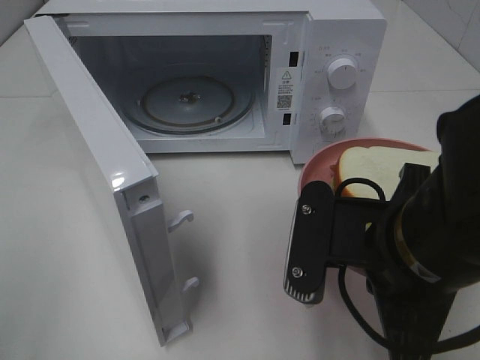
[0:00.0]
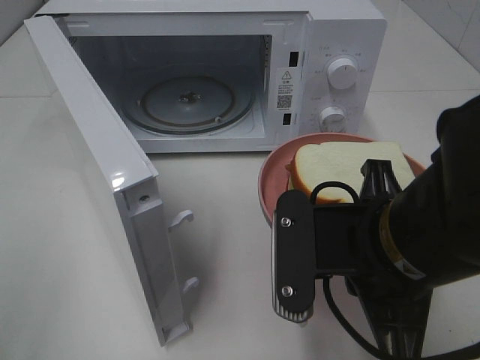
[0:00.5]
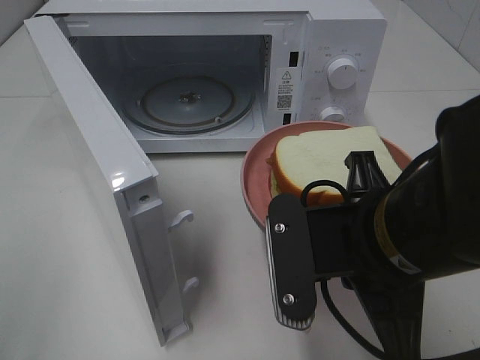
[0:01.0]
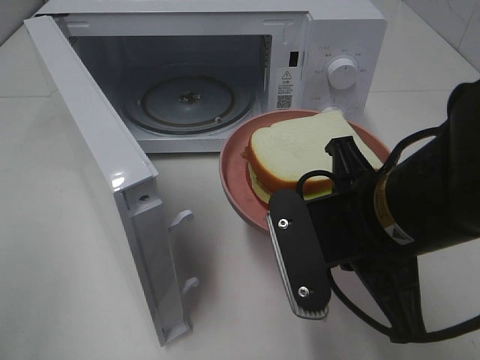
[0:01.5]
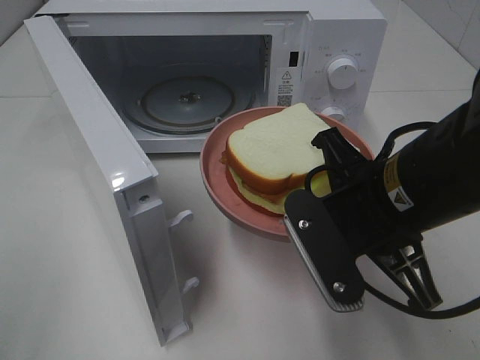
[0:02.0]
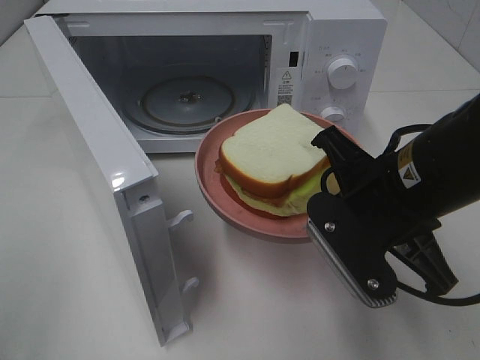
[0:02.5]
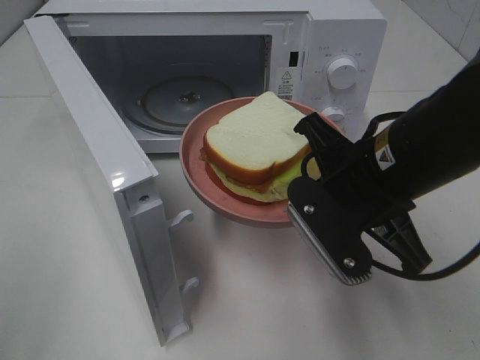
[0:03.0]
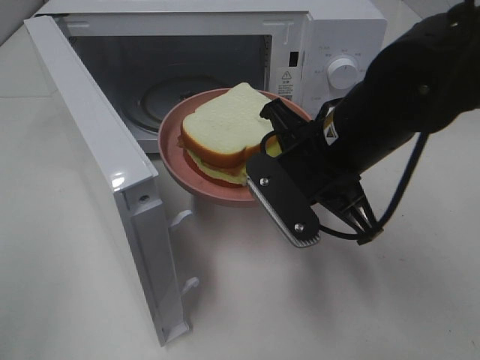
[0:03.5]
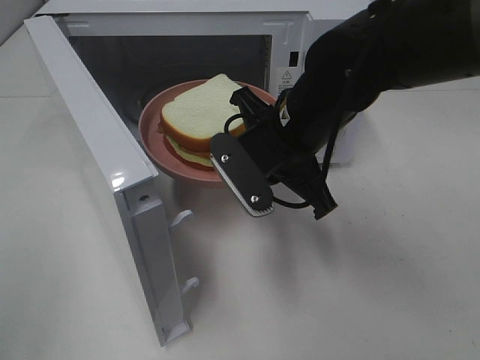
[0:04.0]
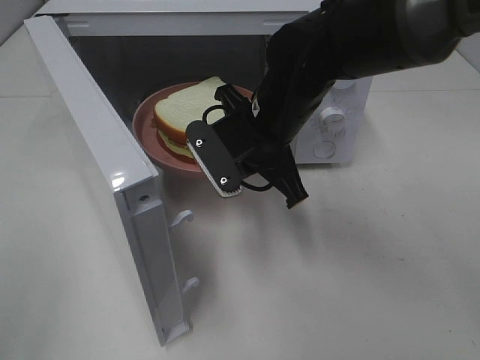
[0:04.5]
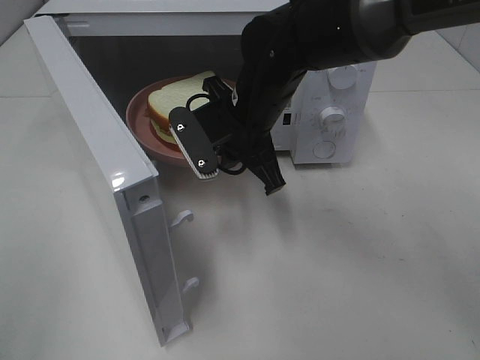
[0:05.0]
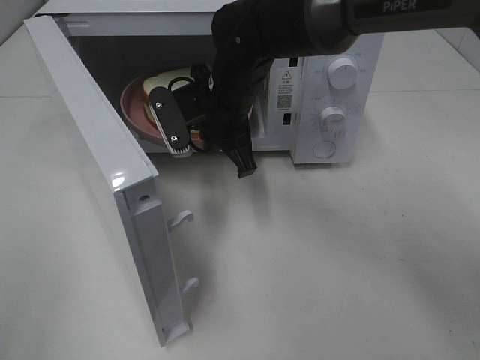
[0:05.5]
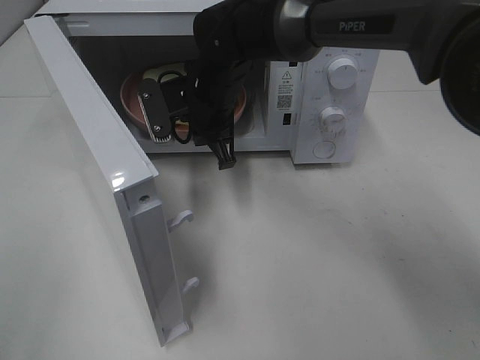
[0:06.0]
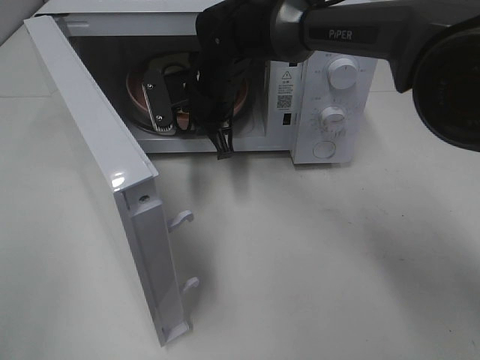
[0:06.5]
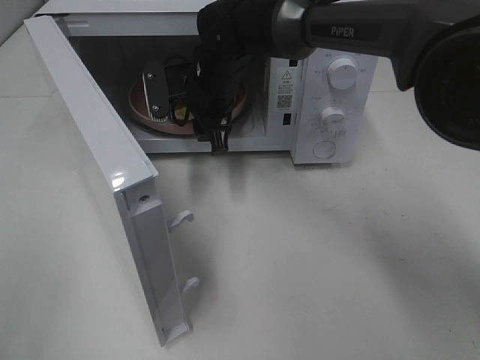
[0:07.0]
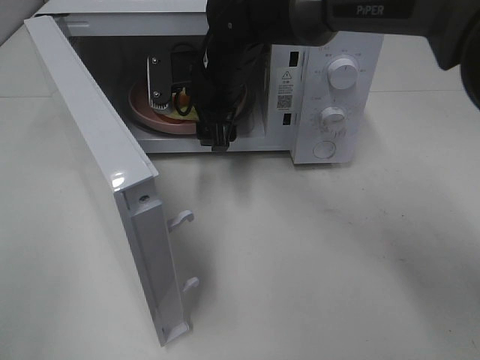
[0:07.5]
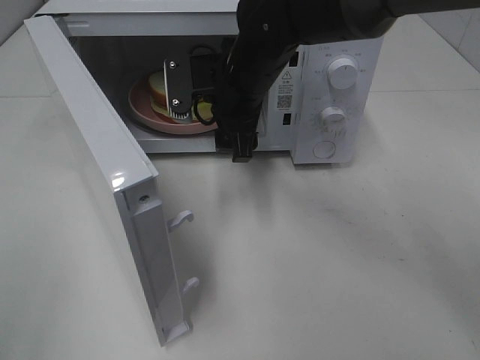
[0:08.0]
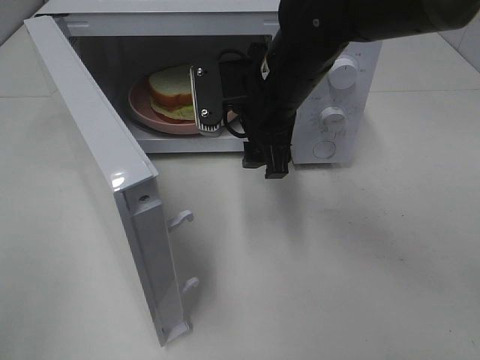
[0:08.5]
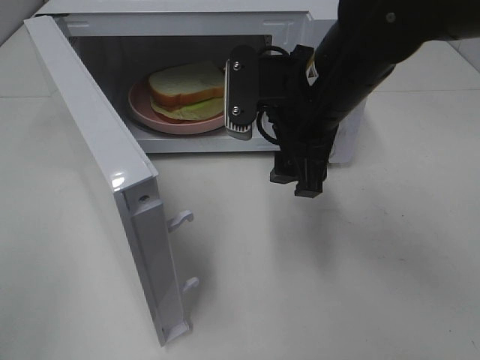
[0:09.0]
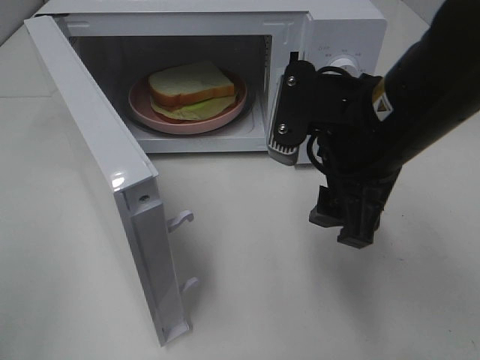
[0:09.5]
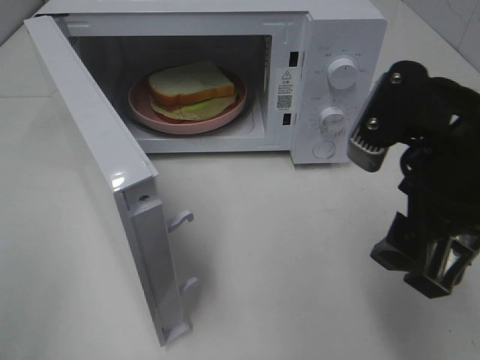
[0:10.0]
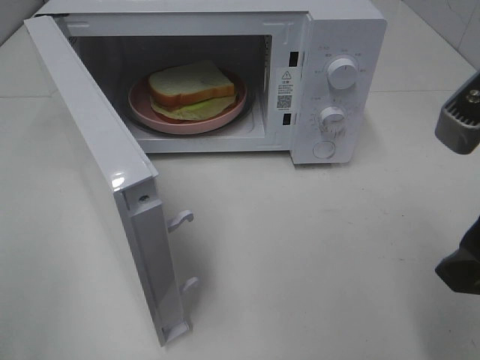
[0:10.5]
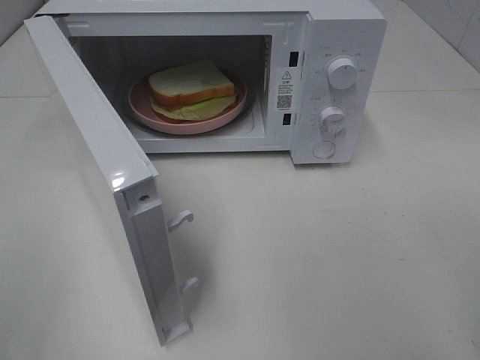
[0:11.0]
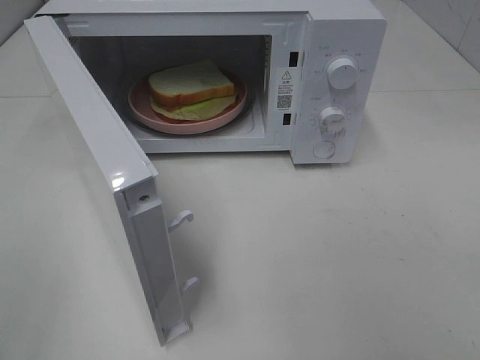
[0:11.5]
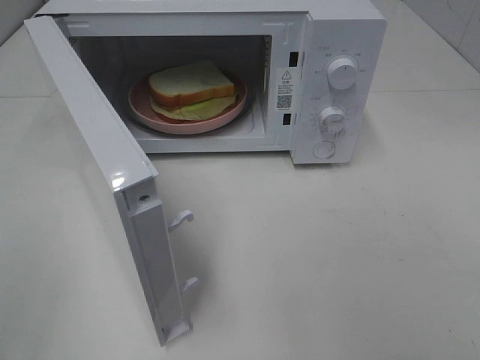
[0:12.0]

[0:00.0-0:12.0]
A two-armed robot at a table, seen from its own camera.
Task of the whole recording: Heat Sandwich.
Step, 0:00.0 to 0:07.5: Right hand: place the plate in the microwave.
0:02.0 to 0:04.0: The right gripper is displaced forward and to the left by roughly 10 cm.
0:04.0 to 0:06.0: The right gripper heads forward and to the left, covering some 15 cm.
0:06.0 to 0:08.0: The right gripper moves about 5 cm, and opens.
0:08.0 to 0:10.0: The right gripper shifts roughly 25 cm backward and to the right.
0:10.0 to 0:12.0: The right gripper shifts approximately 20 cm backward and to the right.

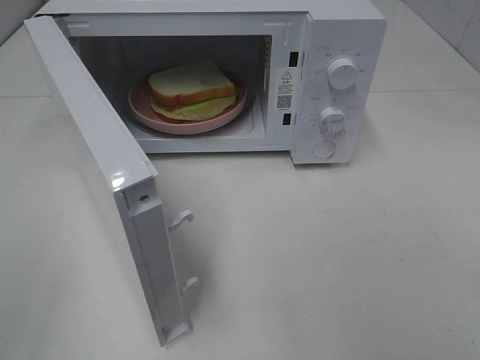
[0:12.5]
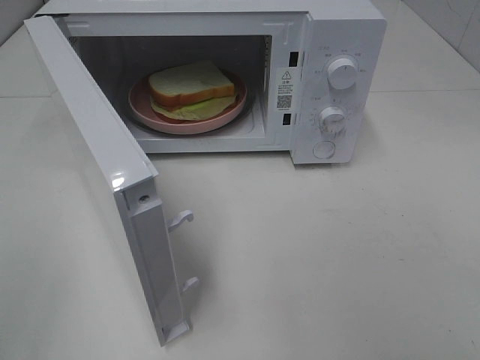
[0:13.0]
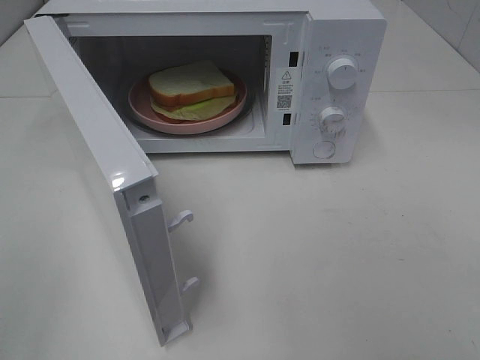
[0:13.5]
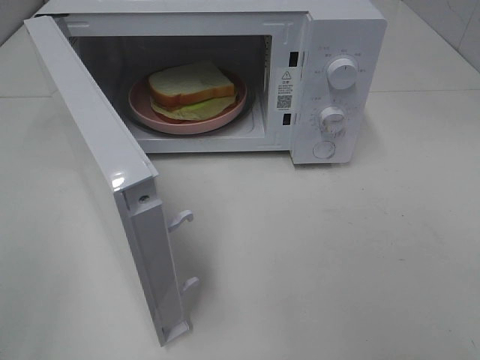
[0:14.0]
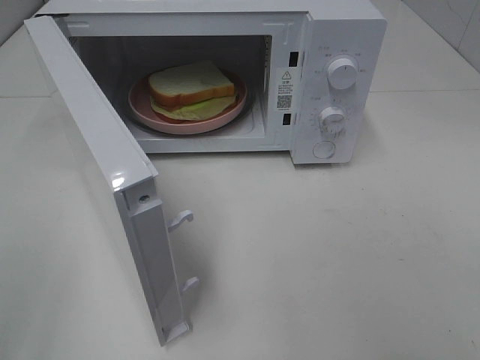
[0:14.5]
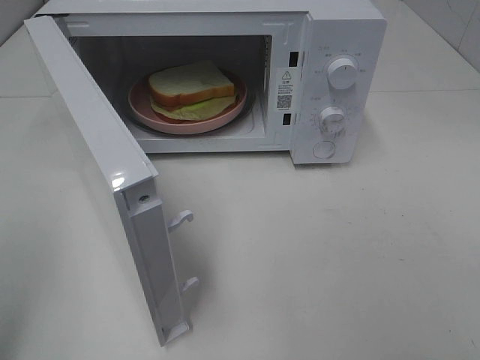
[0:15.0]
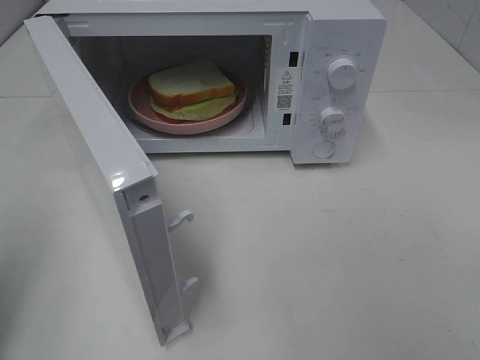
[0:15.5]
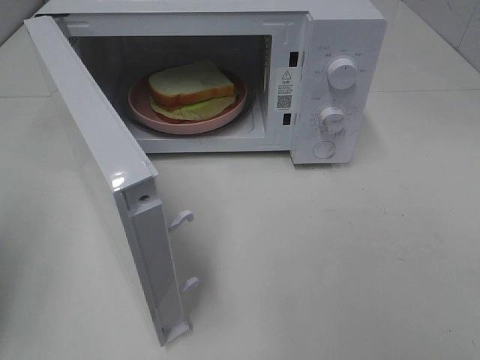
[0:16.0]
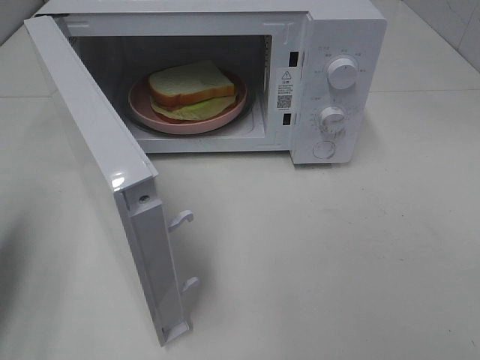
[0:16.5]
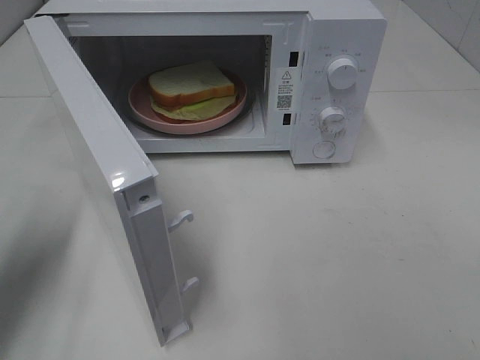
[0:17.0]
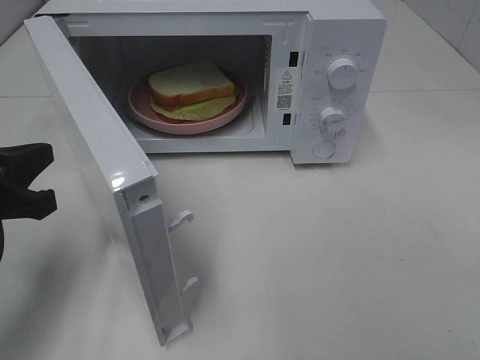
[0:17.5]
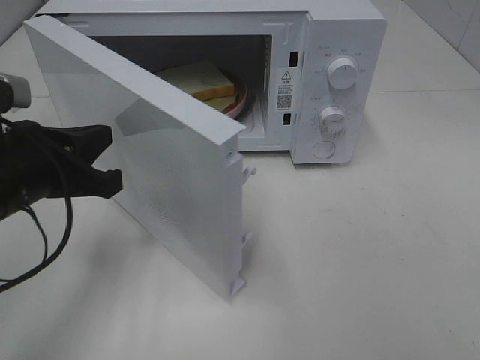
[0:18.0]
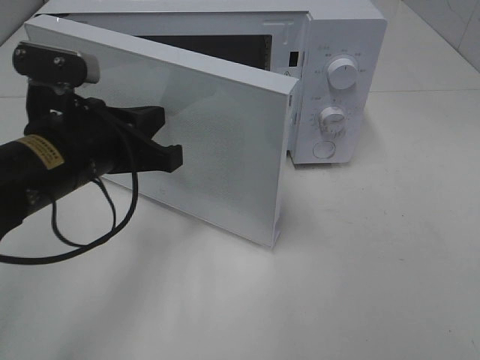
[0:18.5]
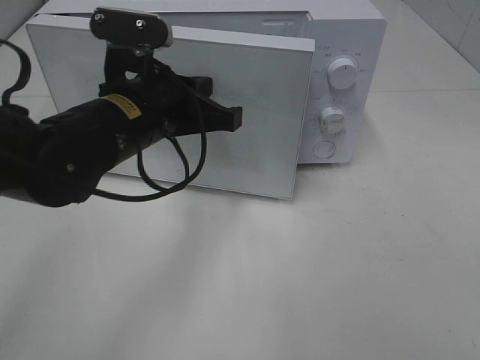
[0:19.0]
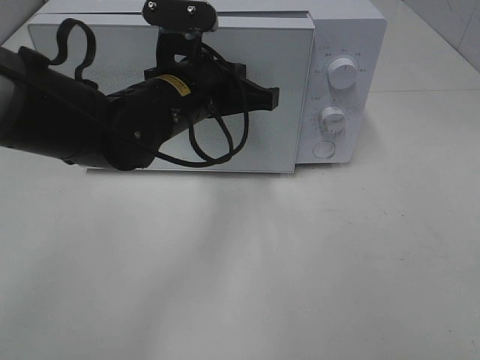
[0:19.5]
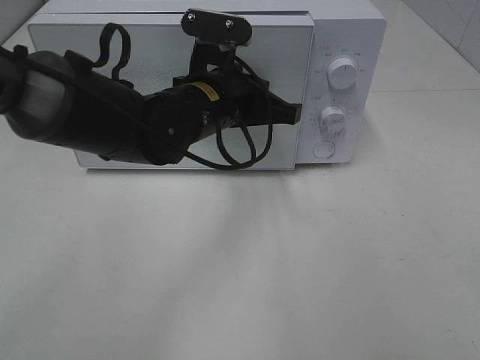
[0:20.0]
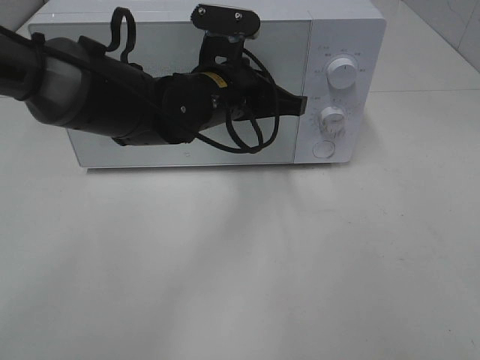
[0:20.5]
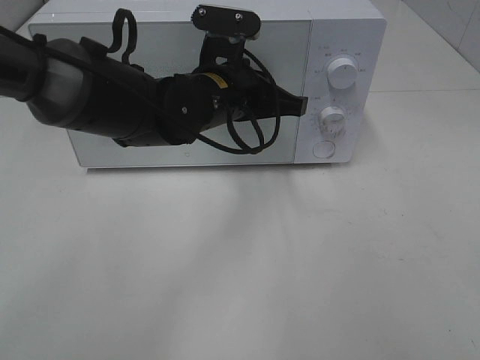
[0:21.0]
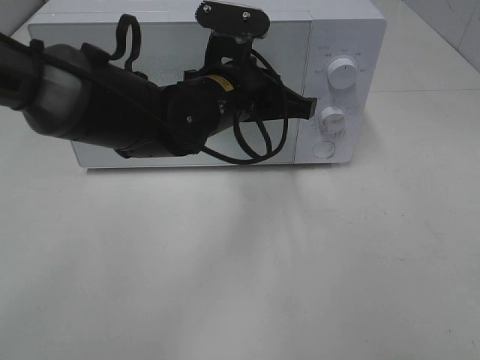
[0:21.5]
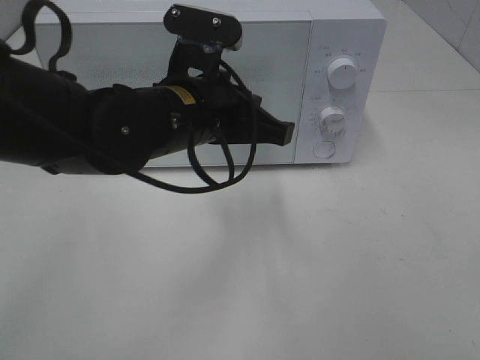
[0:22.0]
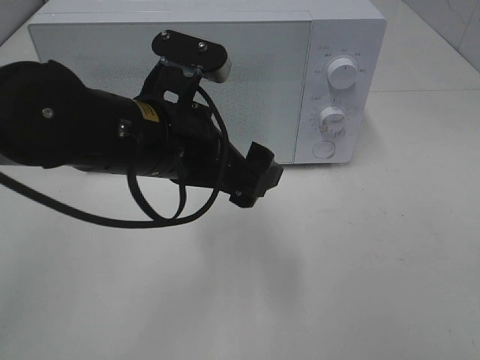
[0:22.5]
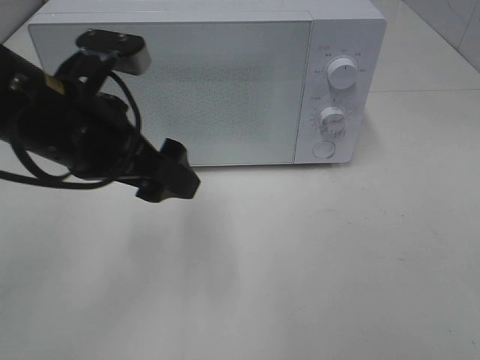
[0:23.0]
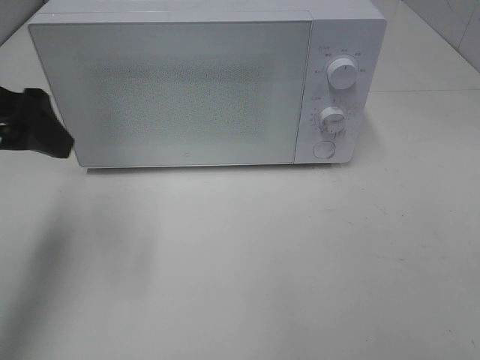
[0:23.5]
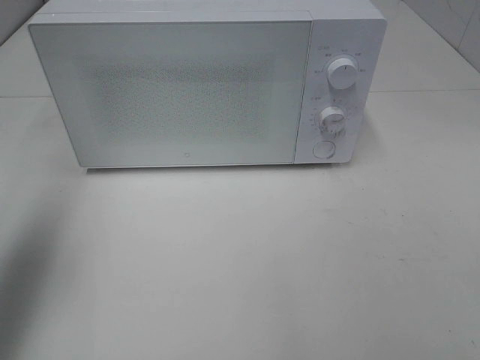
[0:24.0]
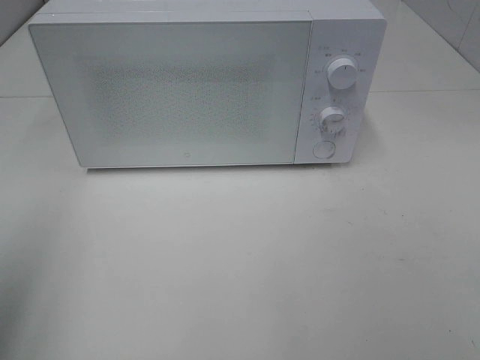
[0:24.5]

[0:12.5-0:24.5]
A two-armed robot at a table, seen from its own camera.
Task of the whole recording: Heat Sandwich.
Step, 0:12.5 to 0:21.0: Left hand: close the microwave door.
0:12.5 to 0:14.5: Both grippers stay put.
0:14.5 to 0:16.5: The left gripper is displaced forward and downward by some 20 cm, and closes.
0:16.5 to 0:18.5: The left gripper goes approximately 20 cm to the right.
0:18.5 to 0:20.5: The left gripper moves to the right and forward, about 15 cm.
0:20.5 to 0:22.5: The left gripper shifts some 10 cm backward, and opens up.
0:22.5 to 0:24.5: The left gripper moves to the left and backward, about 30 cm.

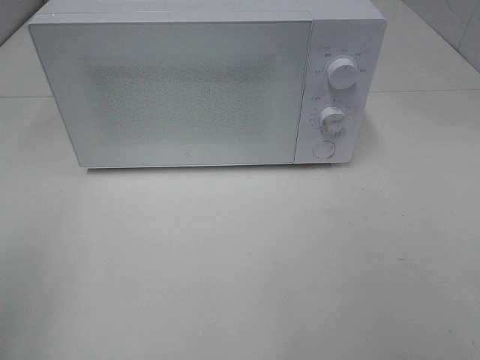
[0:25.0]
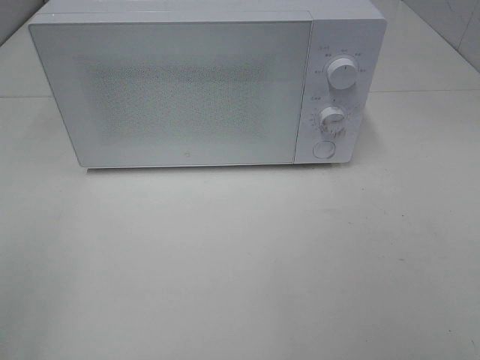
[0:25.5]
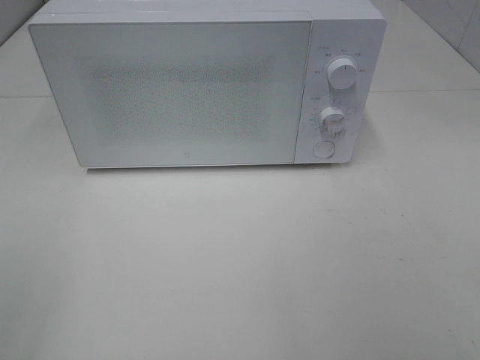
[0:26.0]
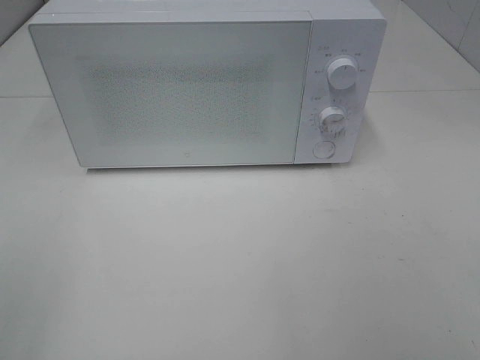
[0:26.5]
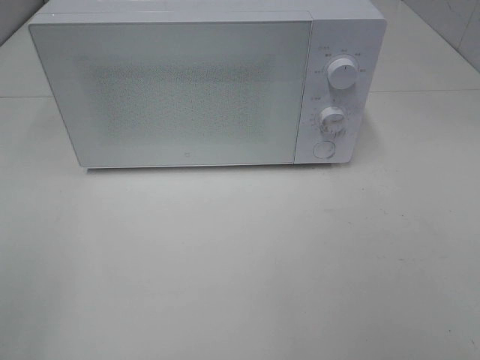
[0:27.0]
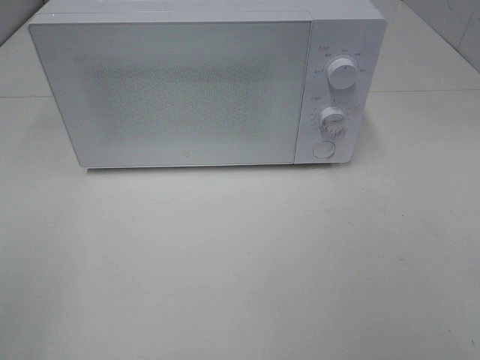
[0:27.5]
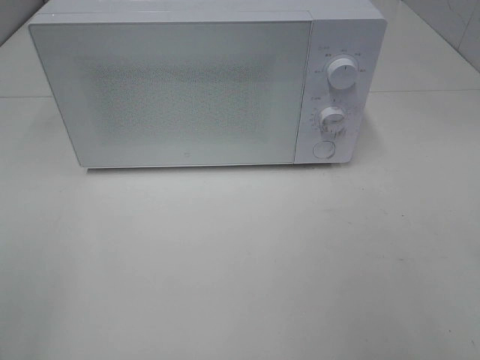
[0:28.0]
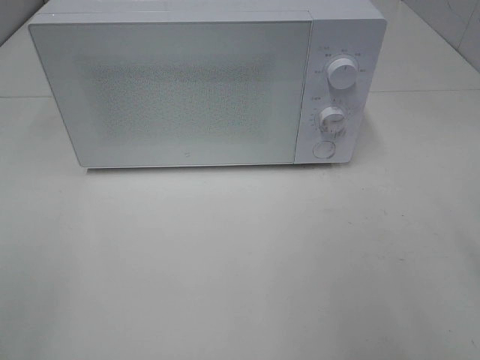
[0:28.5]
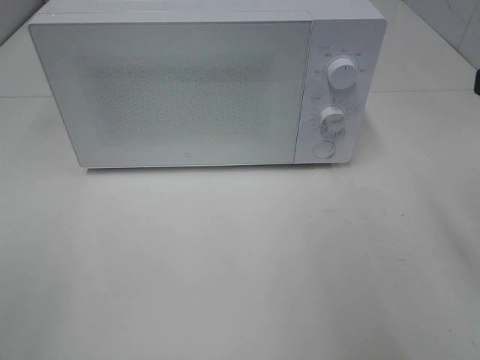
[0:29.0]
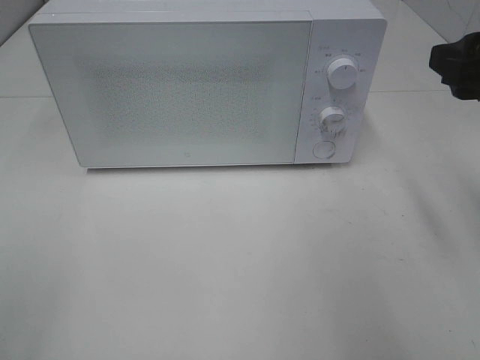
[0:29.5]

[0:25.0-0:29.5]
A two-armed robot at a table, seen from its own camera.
Task of the whole recording: Heat Sandwich.
0:27.0 to 0:29.5: The right gripper travels forward by approximately 25 cm.
